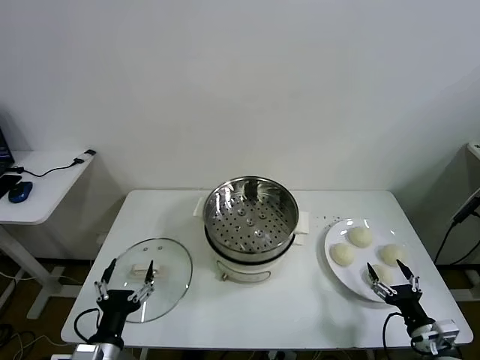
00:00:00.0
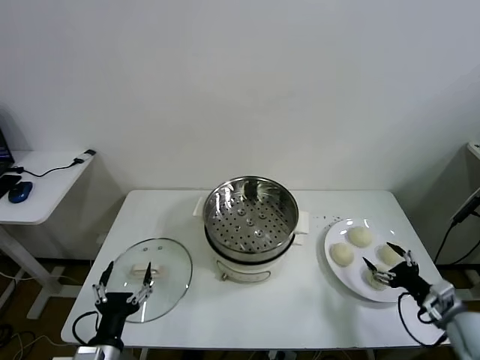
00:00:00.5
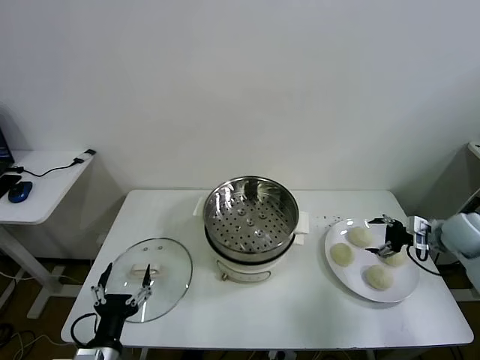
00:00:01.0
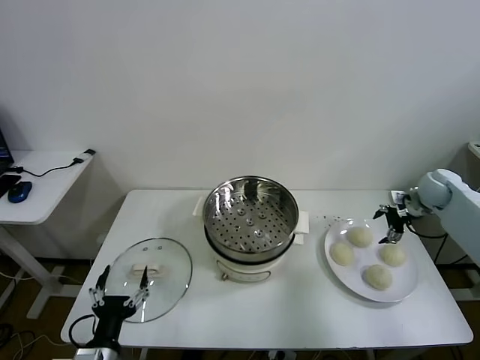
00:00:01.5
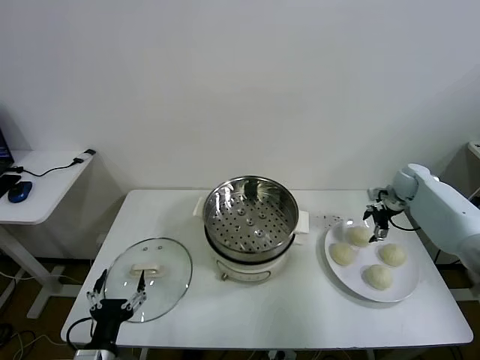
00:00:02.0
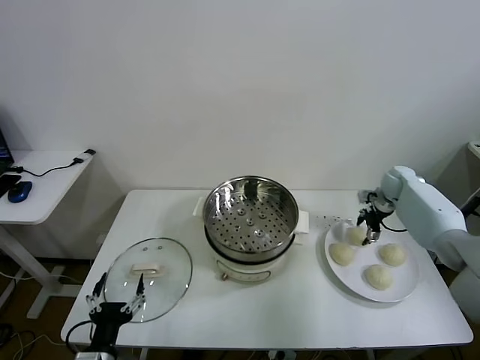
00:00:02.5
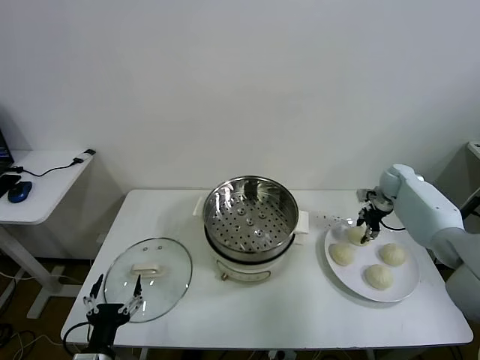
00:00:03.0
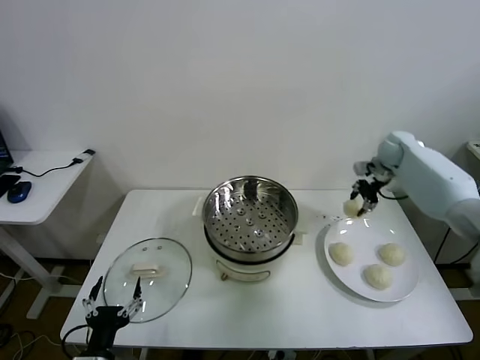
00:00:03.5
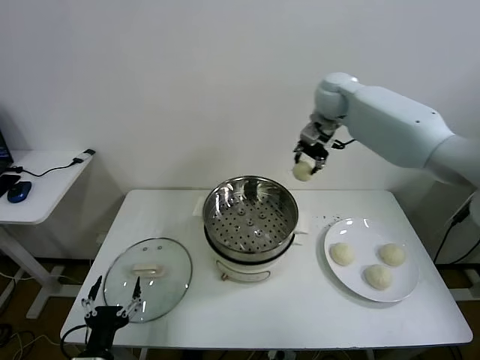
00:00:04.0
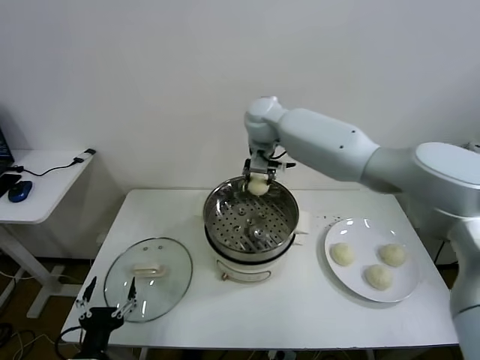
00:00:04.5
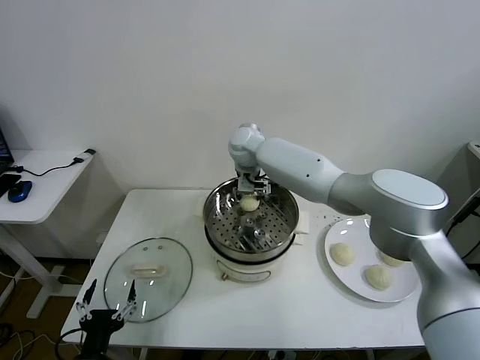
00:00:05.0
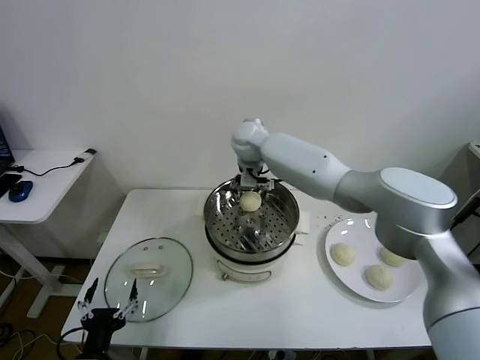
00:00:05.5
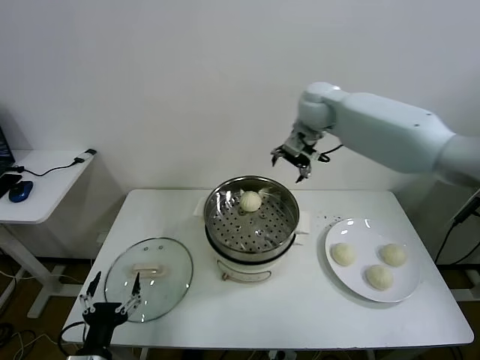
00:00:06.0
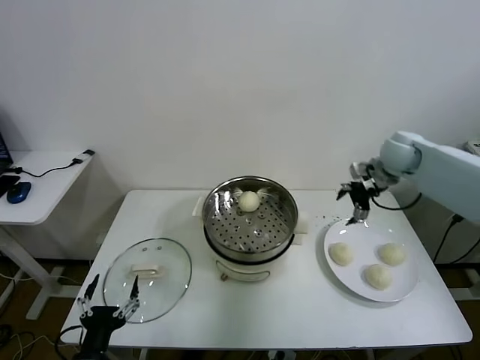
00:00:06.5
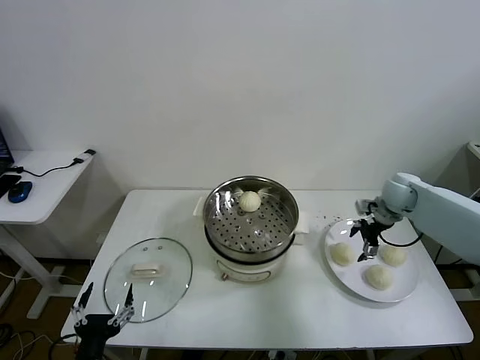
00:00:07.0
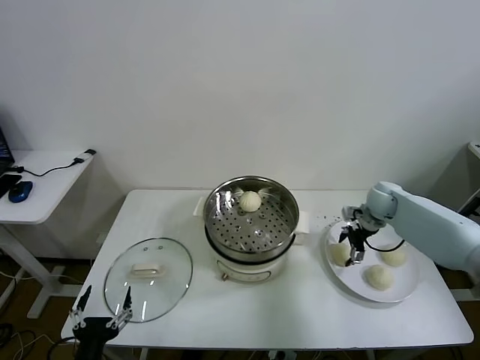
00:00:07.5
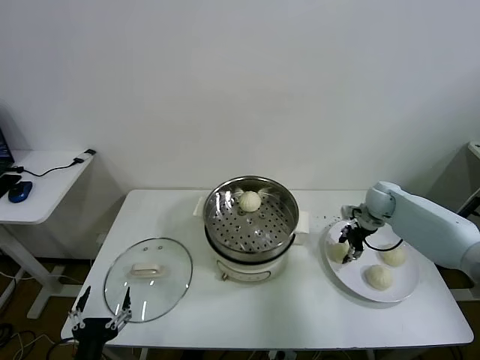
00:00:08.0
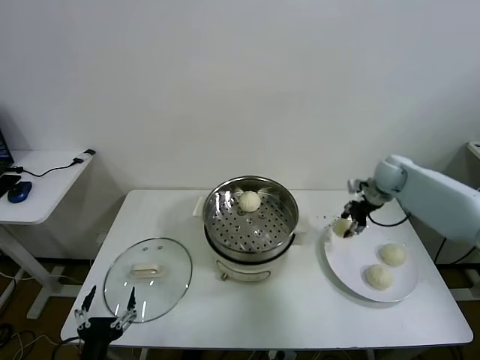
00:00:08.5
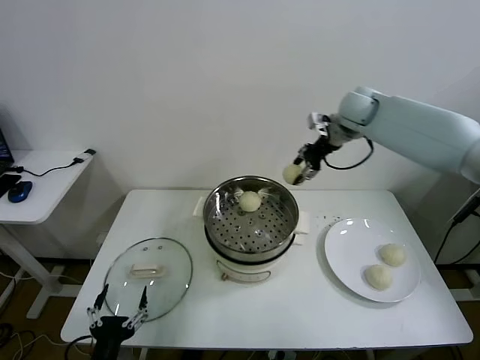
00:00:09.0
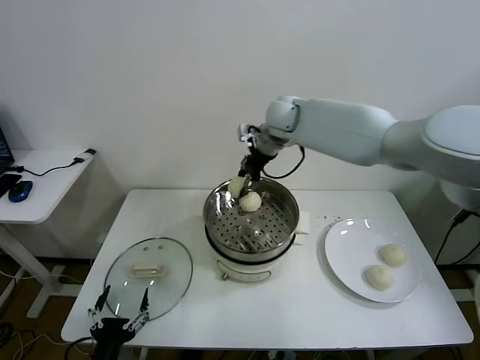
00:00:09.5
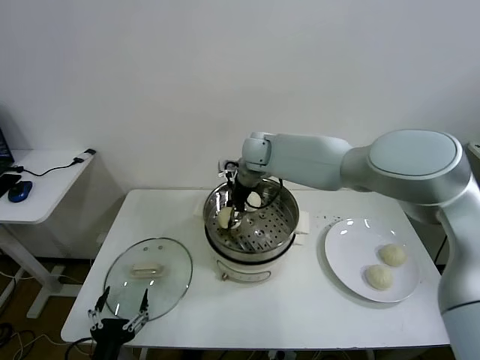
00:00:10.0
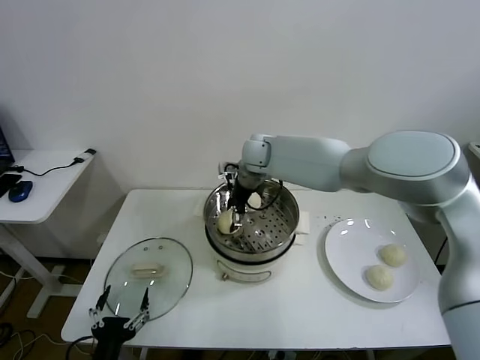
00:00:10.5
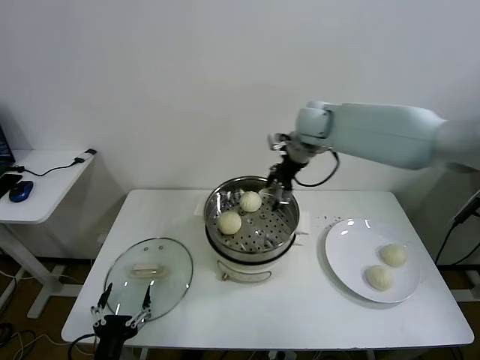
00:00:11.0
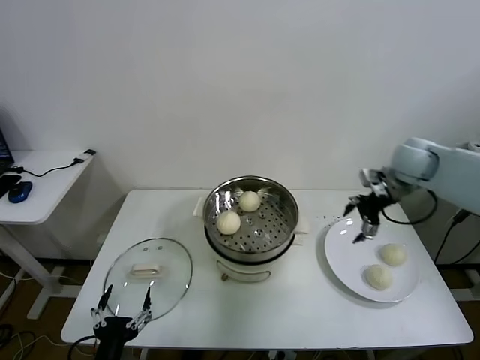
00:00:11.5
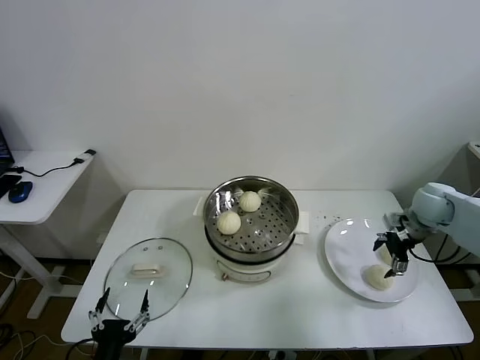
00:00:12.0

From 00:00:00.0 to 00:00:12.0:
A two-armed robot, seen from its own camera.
Task of the whole recording: take steamed baozi put them in steamer.
Step, from 00:00:00.0 to 00:00:02.5: Grasp the baozi in the plate with right gripper.
Step, from 00:00:03.0 to 00:00:05.5: Place the baozi on the steamer with right gripper.
Step, from 00:00:06.0 to 00:00:07.5: Grasp the baozi in the plate with right gripper.
Step, from 00:00:08.0 to 00:00:10.5: Place the baozi on the steamer with right gripper.
From 00:00:02.0 to 00:00:04.0: The right gripper goes about 40 cm to the left and upward, and closes up.
From 00:00:04.0 to 00:00:06.0: The right gripper travels to the left and back again, approximately 15 cm each way, and opens up.
From 00:00:06.0 to 00:00:08.0: The right gripper moves downward and to the right, about 30 cm, and closes.
From 00:00:08.0 to 00:00:10.0: The right gripper is displaced to the left by approximately 35 cm.
From 00:00:10.0 to 00:00:12.0: The right gripper heads to the right, covering some 40 cm, and opens its fingers.

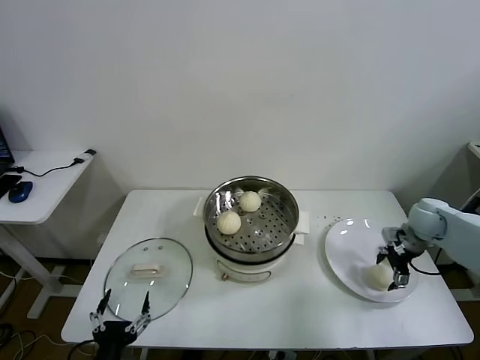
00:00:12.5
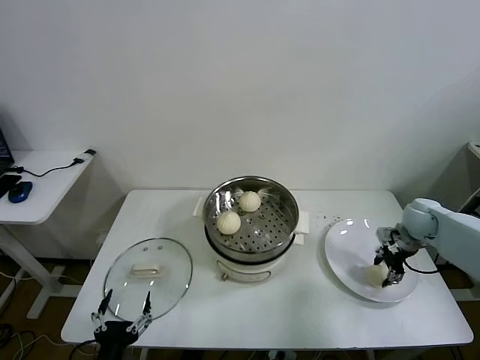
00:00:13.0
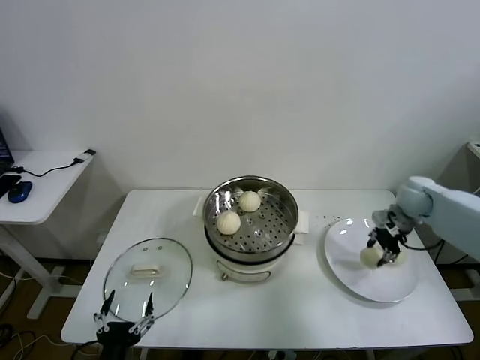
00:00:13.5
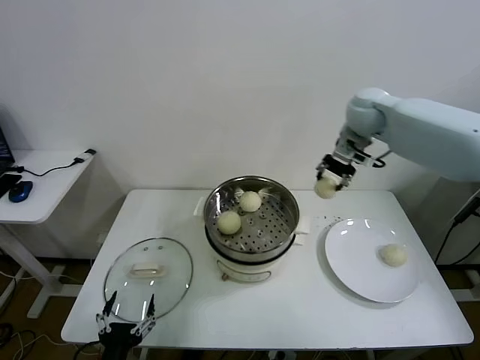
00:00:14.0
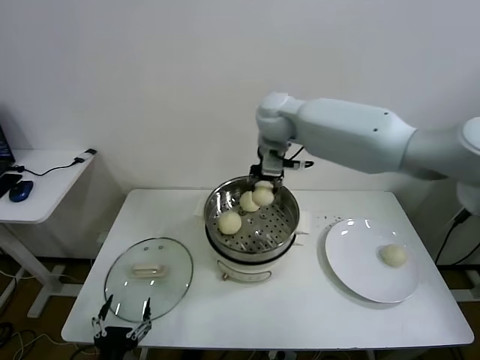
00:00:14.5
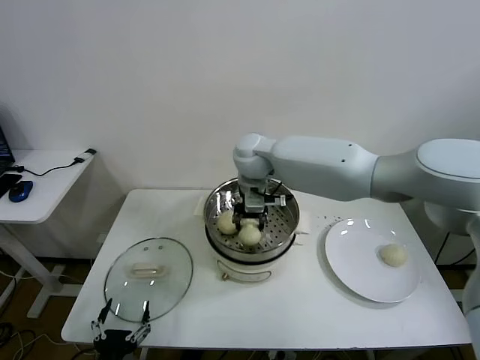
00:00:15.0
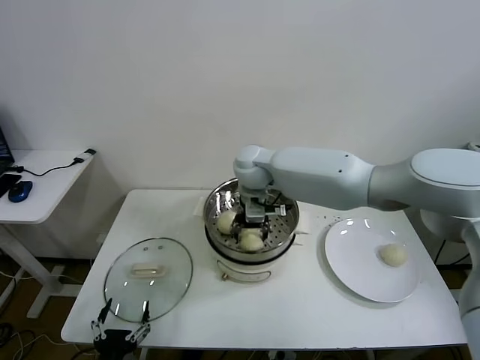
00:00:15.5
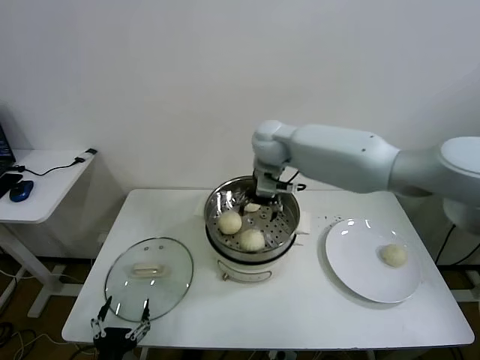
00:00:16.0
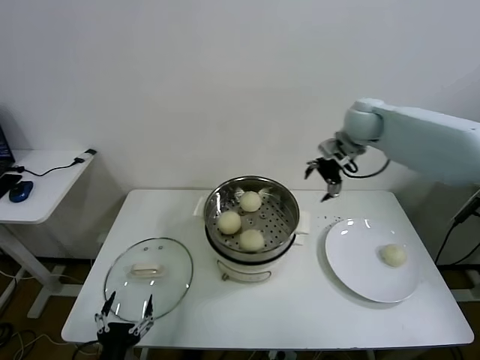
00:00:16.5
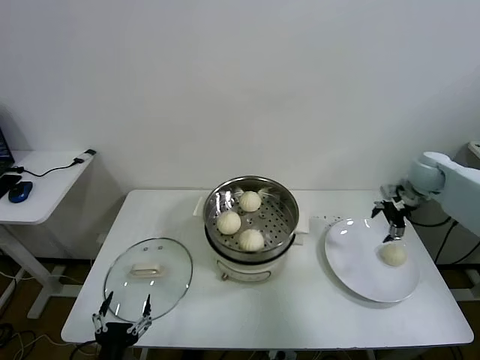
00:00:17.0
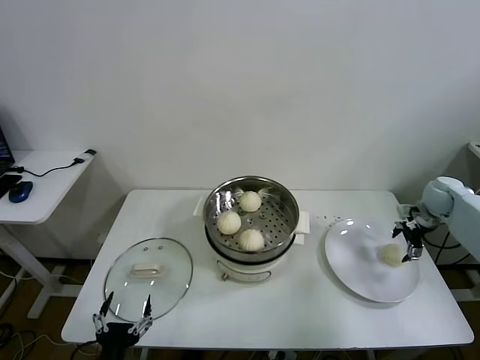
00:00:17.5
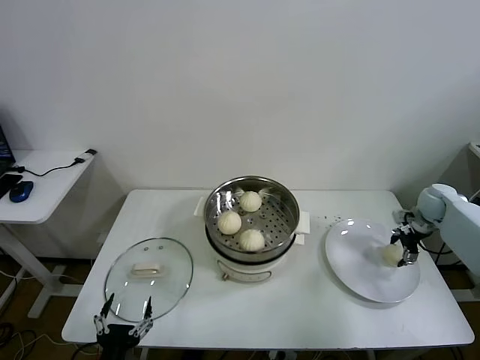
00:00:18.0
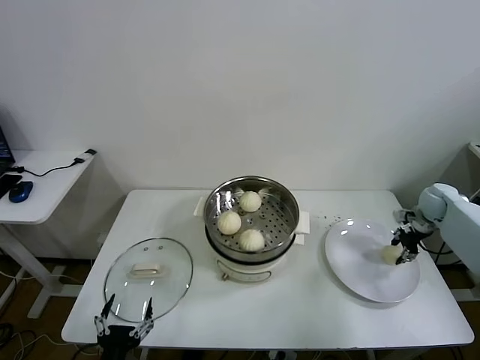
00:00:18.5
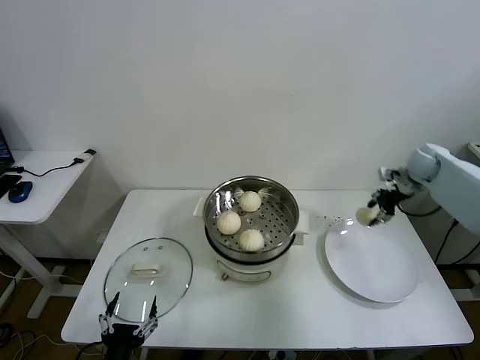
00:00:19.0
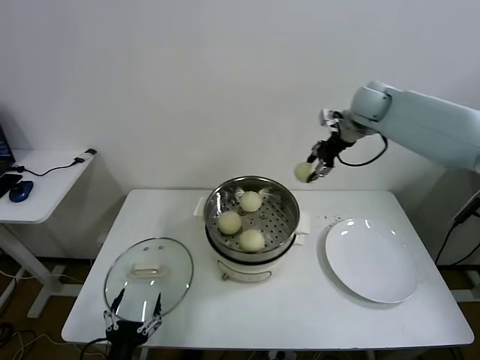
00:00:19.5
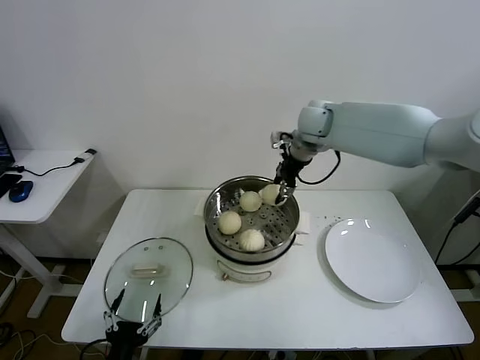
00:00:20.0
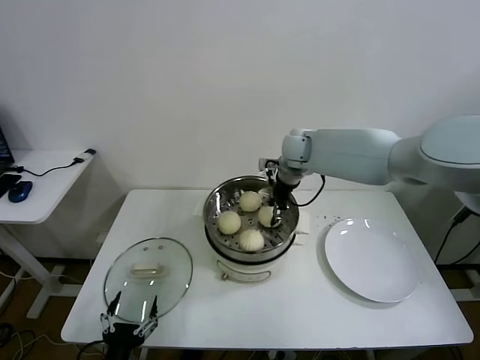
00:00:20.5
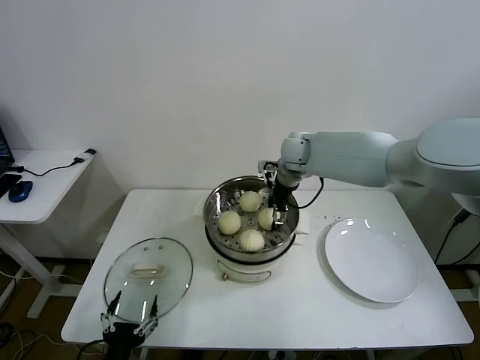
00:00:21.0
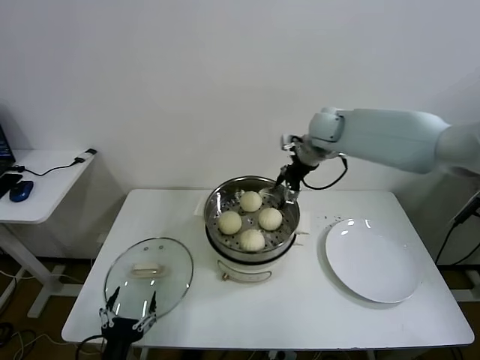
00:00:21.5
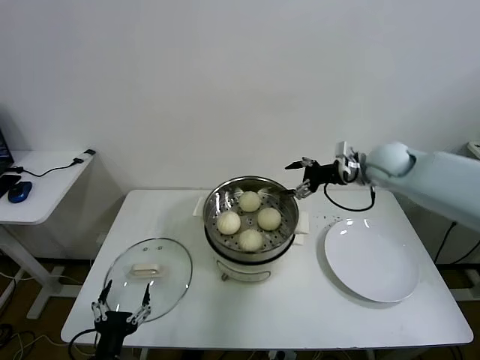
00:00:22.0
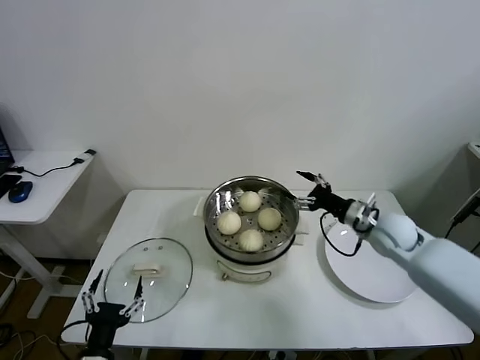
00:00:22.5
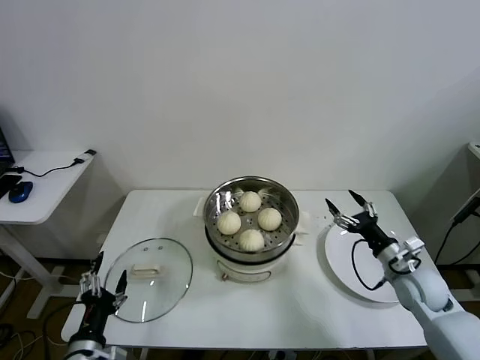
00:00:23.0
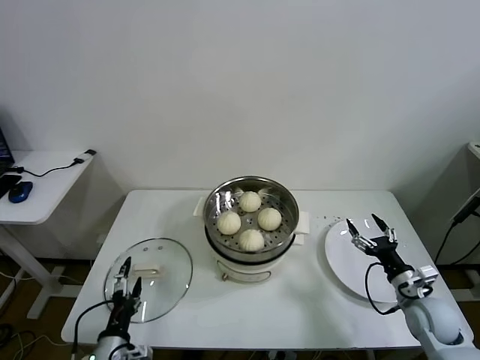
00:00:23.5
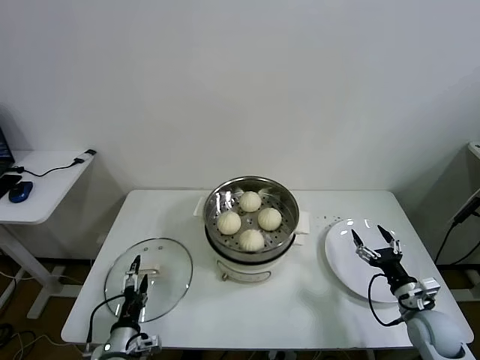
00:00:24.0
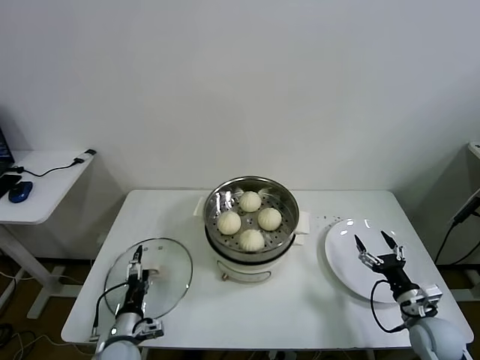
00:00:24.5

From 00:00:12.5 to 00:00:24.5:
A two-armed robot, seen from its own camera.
Task of the whole recording: take steamed baozi put them in steamer.
Step, from 00:00:13.0 to 00:00:15.5: Place the baozi on the steamer with right gripper.
Step, from 00:00:16.0 to 00:00:18.0: Grasp the baozi in the plate with right gripper.
Step, from 00:00:18.5 to 00:00:21.0: Place the baozi on the steamer with right gripper.
From 00:00:12.5 to 00:00:14.5: The right gripper goes roughly 50 cm to the left and upward, and closes up.
From 00:00:14.5 to 00:00:16.5: The right gripper goes some 25 cm to the right, and opens.
From 00:00:16.5 to 00:00:18.5: The right gripper moves to the right and downward, roughly 30 cm, and closes.
From 00:00:18.5 to 00:00:20.5: The right gripper shifts roughly 40 cm to the left.
From 00:00:20.5 to 00:00:22.5: The right gripper goes some 30 cm to the right, backward and downward, and opens its fingers.
From 00:00:22.5 to 00:00:24.5: The right gripper travels backward, downward and to the right by about 25 cm, while the left gripper moves forward and downward, about 15 cm.

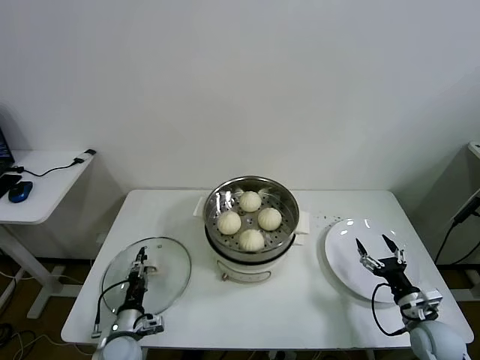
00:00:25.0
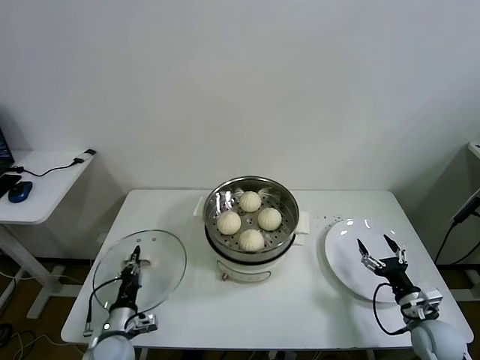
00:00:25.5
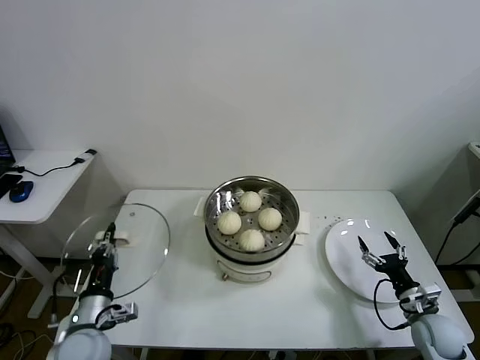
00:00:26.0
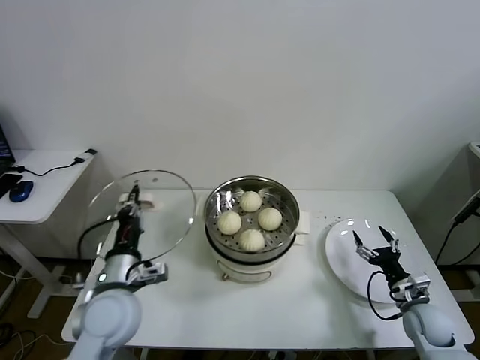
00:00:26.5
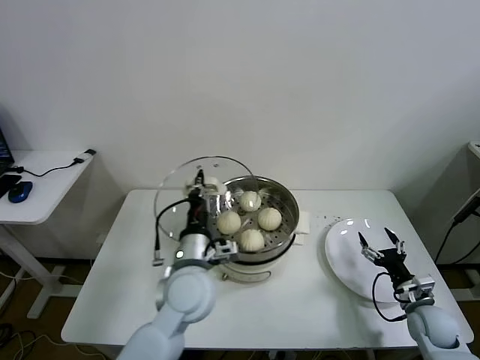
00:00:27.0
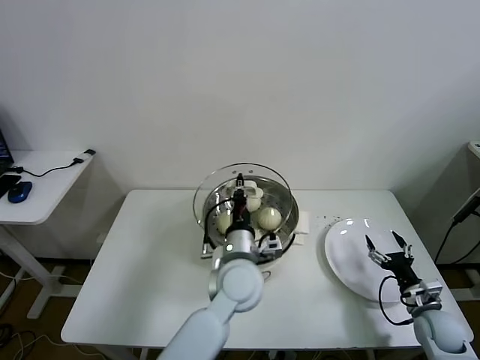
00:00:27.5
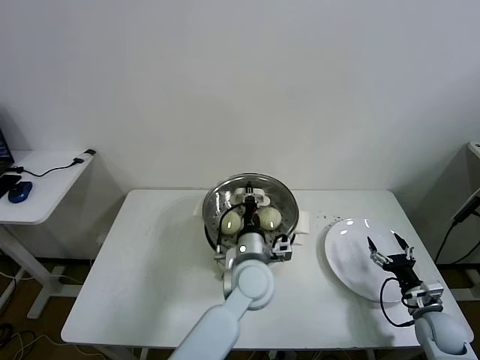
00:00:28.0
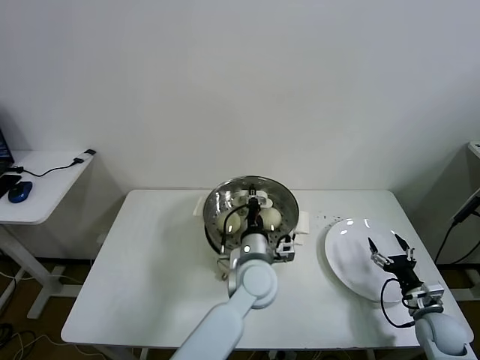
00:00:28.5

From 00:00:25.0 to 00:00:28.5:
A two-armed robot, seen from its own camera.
Task of the whole recording: take steamed baozi put them in steamer.
From 00:00:25.0 to 00:00:27.0: The left gripper goes about 30 cm upward and to the right, and closes.
From 00:00:27.0 to 00:00:28.5: The left gripper is displaced to the right and downward by some 15 cm.
